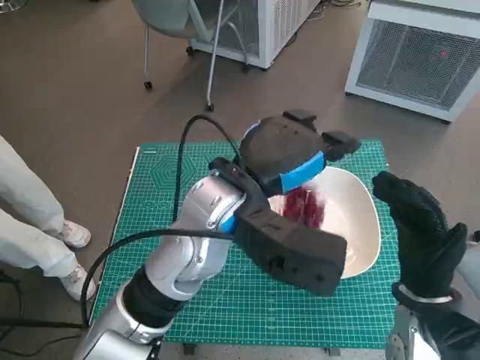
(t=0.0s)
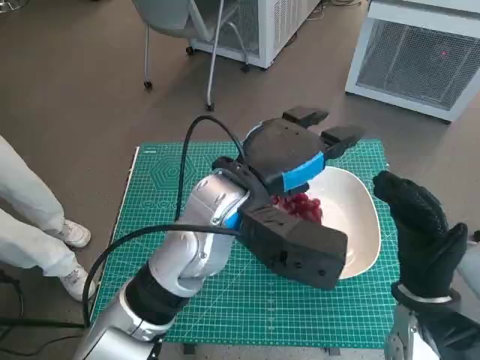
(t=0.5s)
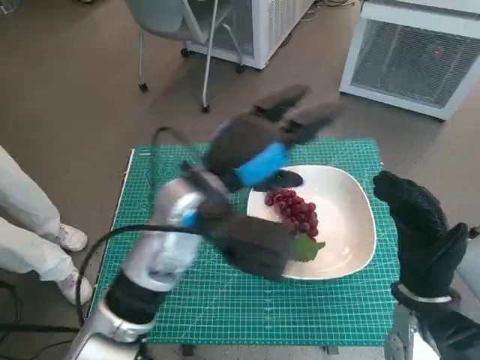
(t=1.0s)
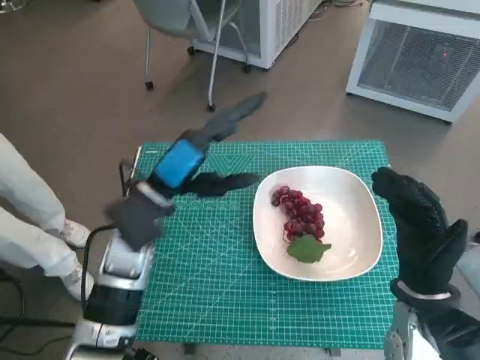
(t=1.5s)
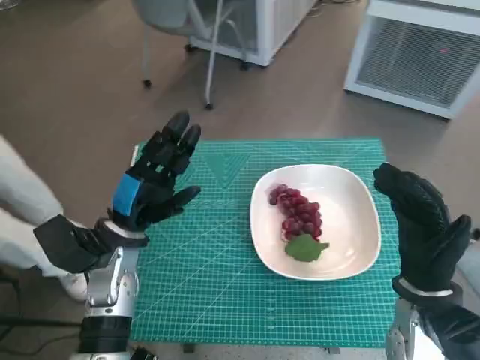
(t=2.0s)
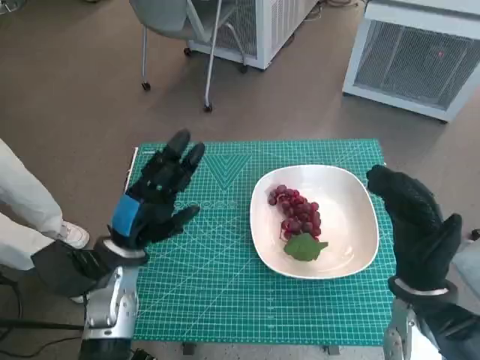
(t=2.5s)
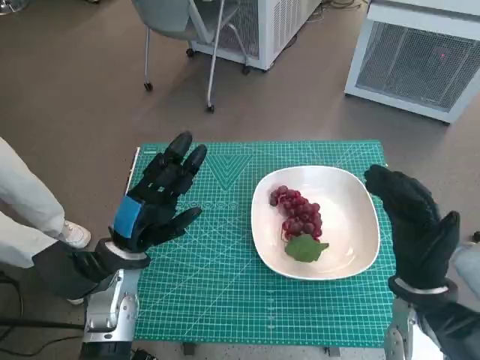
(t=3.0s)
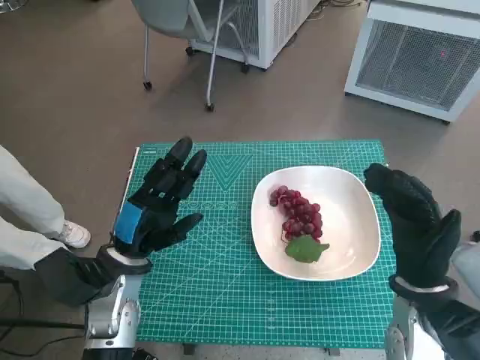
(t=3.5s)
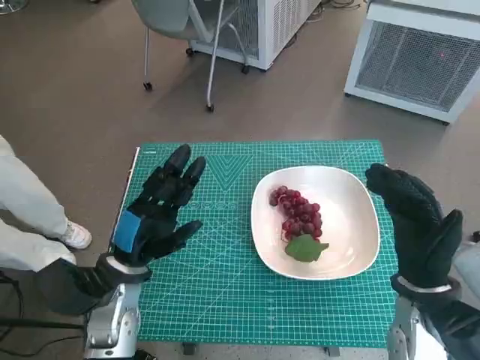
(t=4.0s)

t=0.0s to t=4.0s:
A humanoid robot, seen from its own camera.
Task of the whole recording: Pick up the grapes and put them on the plate.
t=0.0s to t=2.0s: The left hand travels to the left and downward by approximately 20 cm.
t=2.0s to t=4.0s: The hands move only a little.

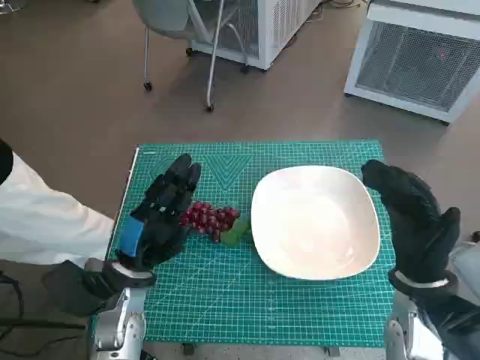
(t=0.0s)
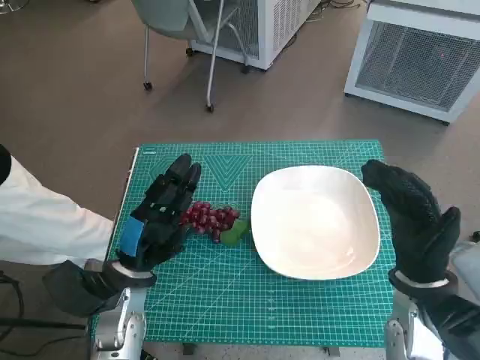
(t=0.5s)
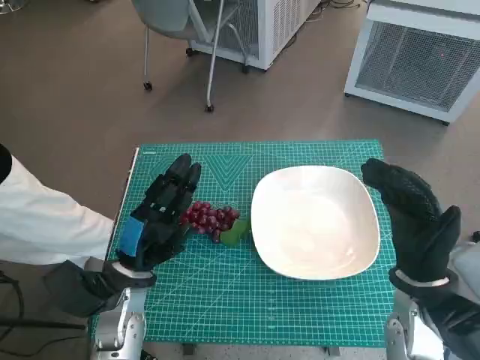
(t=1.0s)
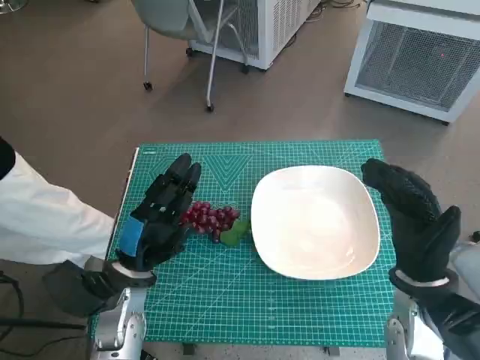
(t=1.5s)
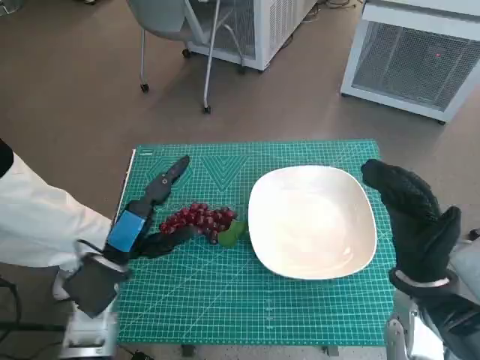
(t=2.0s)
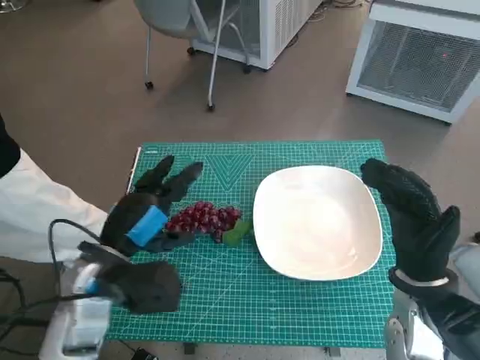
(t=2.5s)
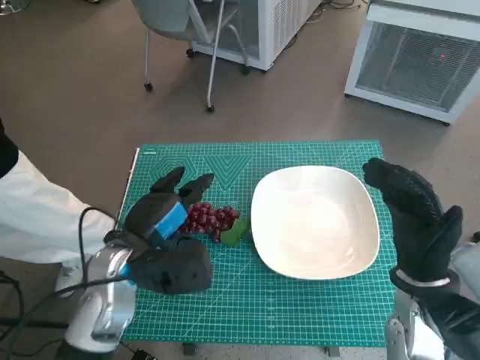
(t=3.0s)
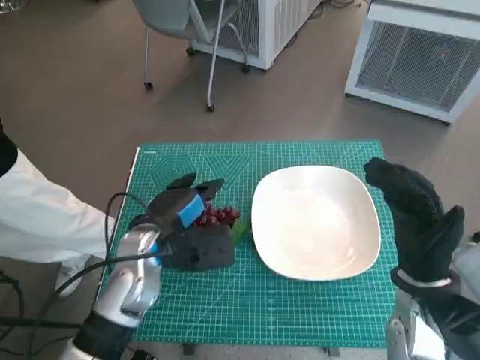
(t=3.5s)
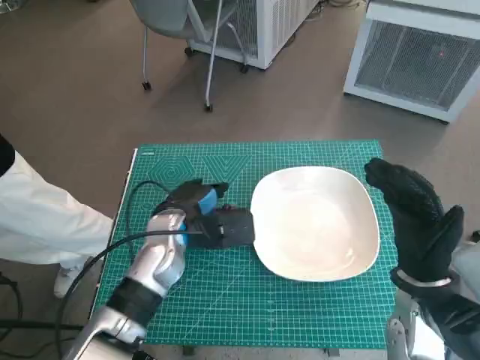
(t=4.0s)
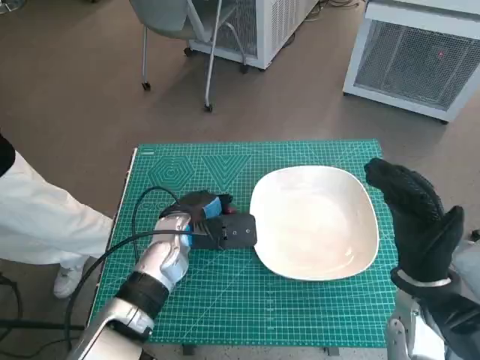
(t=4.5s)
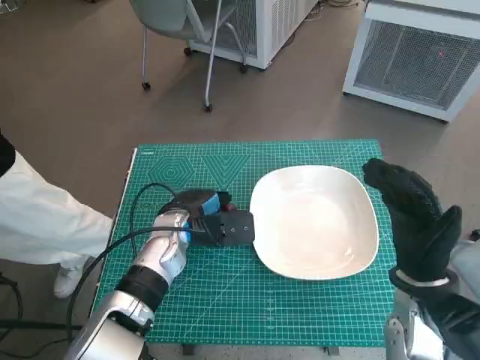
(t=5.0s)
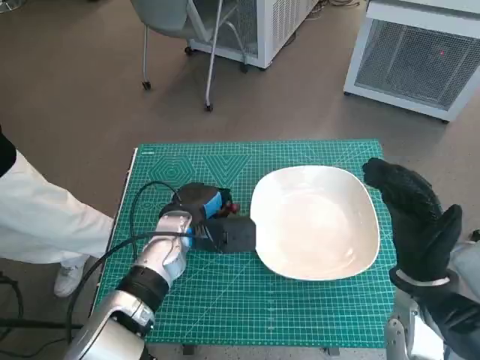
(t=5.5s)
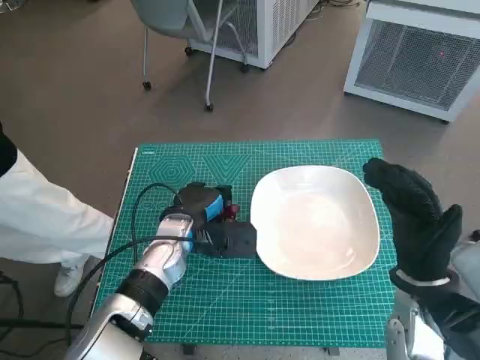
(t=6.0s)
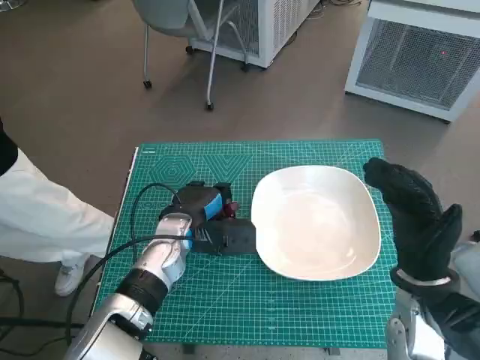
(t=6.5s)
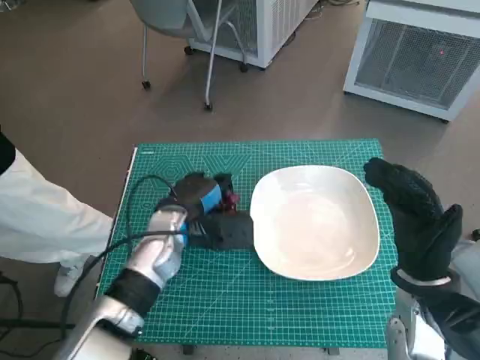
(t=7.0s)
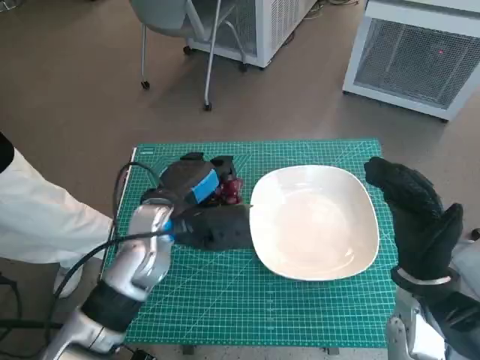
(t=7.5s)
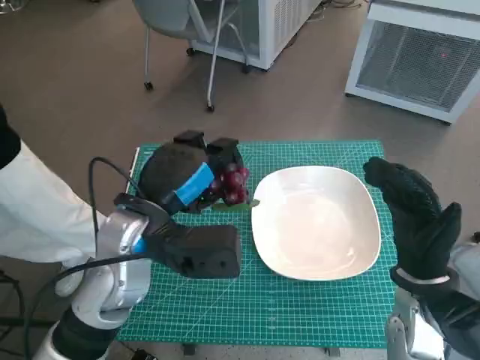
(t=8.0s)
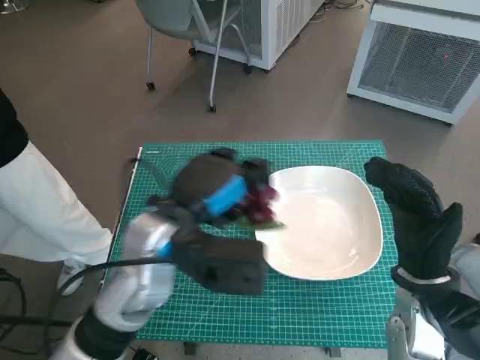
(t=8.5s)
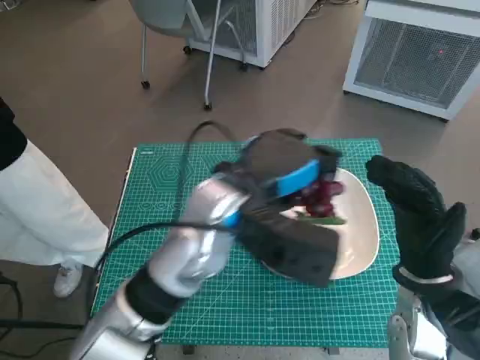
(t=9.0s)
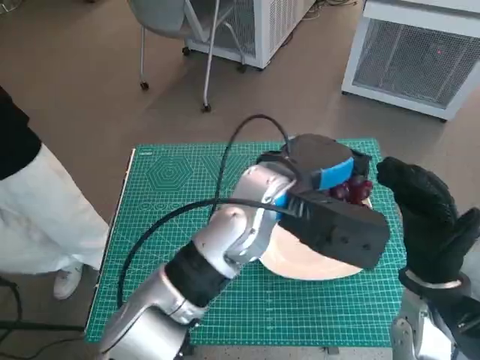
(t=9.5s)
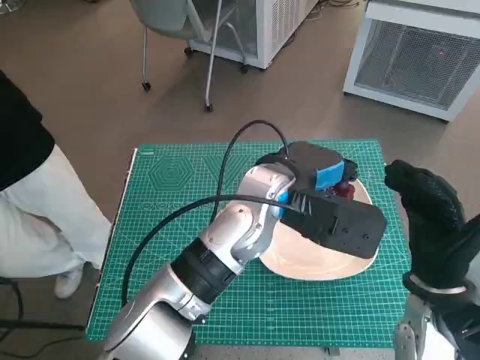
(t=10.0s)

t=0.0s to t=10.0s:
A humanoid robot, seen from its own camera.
Task of the whole recording: Pick up the grapes and put them on the plate.
Step, t=0.0s to t=6.0s: Grasp the grapes with left hand.
t=2.0s to t=4.0s: The left hand heads to the right and forward, covering approximately 10 cm.
t=4.0s to t=6.0s: There are only small adjustments of the hands.
t=6.0s to t=8.0s: The left hand is displaced upward and backward by some 15 cm.
t=8.0s to t=10.0s: The left hand is displaced to the right by some 15 cm.

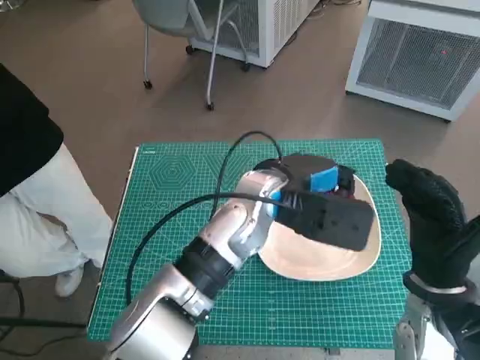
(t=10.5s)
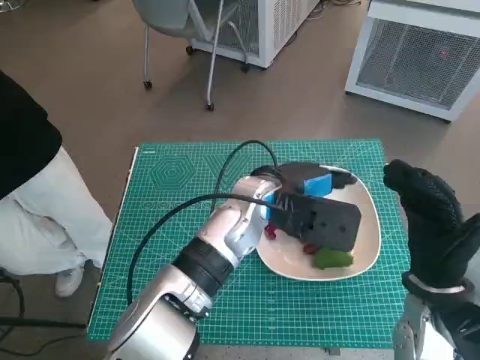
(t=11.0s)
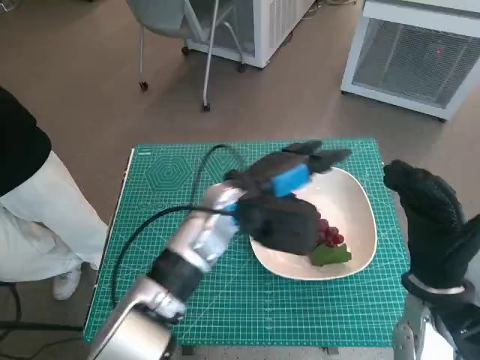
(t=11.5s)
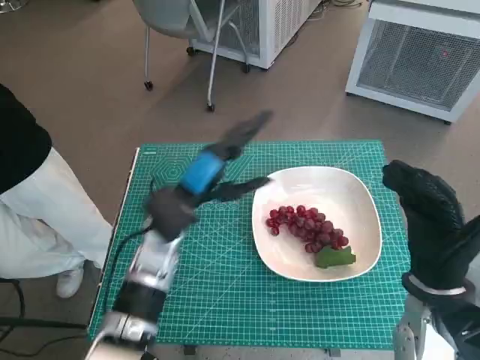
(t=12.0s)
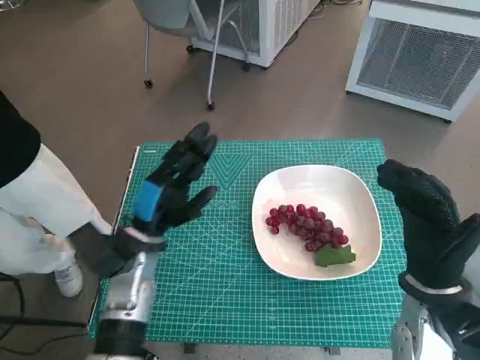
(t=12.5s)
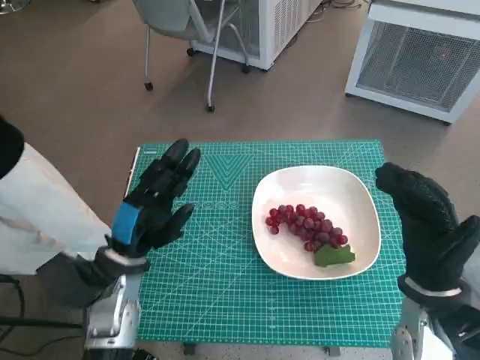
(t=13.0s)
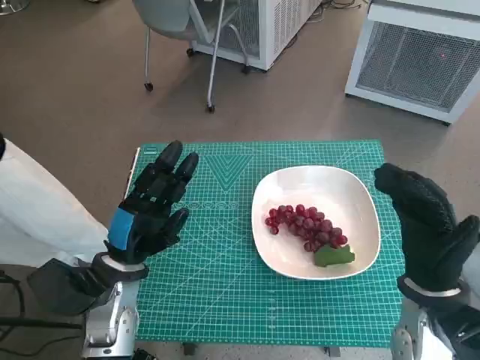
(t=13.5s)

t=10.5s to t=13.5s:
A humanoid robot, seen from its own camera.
Task of the whole recording: Pick up the grapes and put them on the plate.
t=10.5s to t=12.0s: The left hand travels to the left and downward by roughly 15 cm.
t=12.0s to t=13.5s: The left hand heads to the left and backward, covering approximately 10 cm.

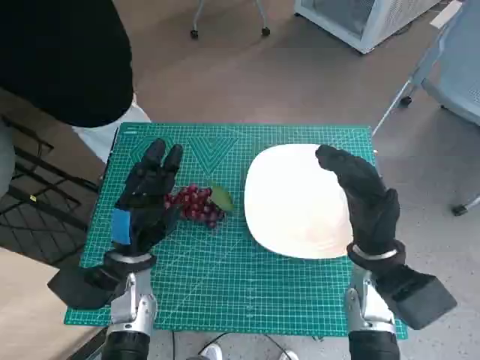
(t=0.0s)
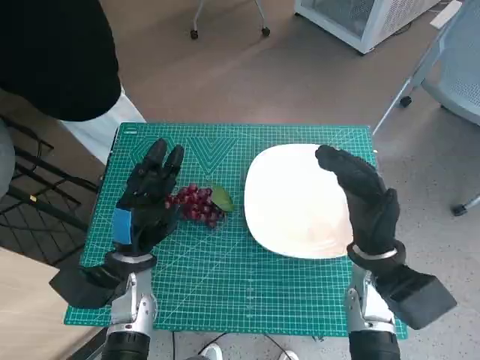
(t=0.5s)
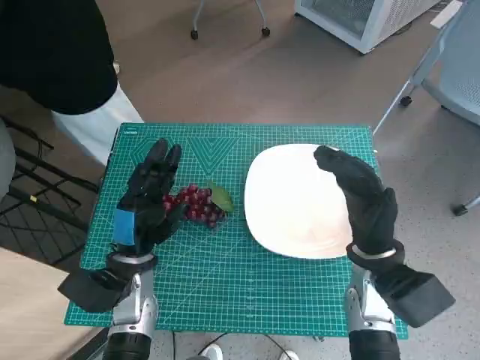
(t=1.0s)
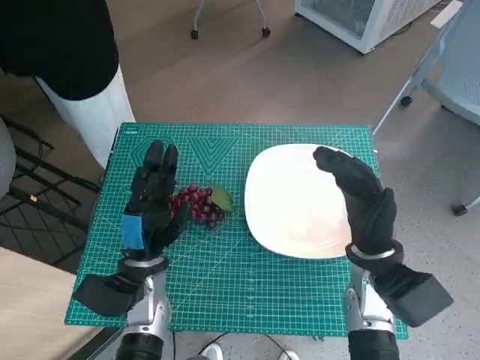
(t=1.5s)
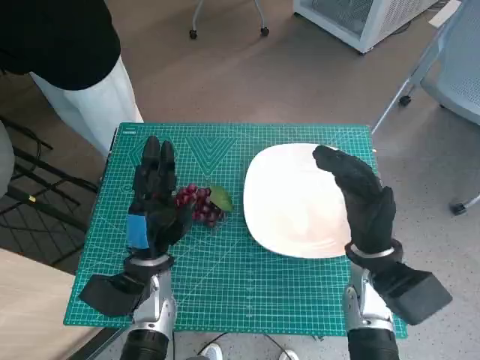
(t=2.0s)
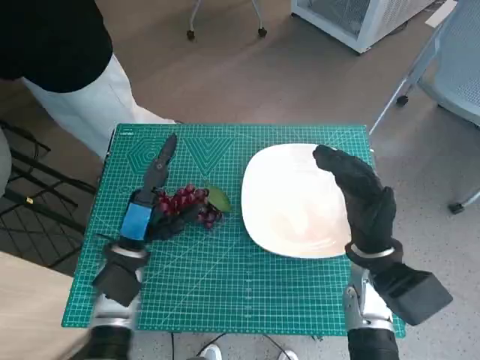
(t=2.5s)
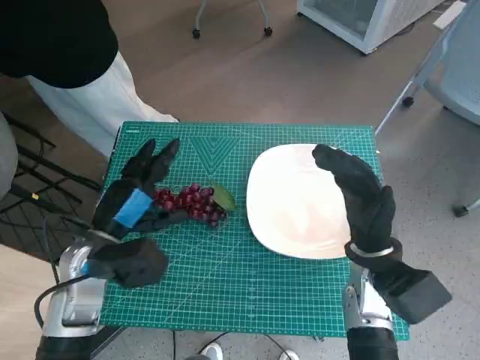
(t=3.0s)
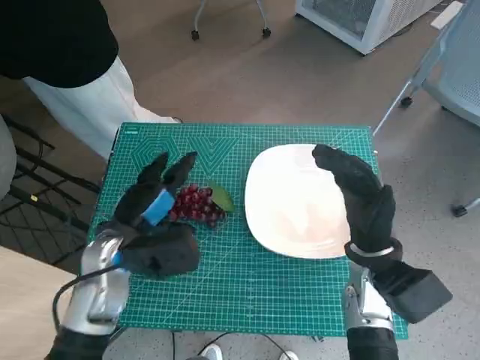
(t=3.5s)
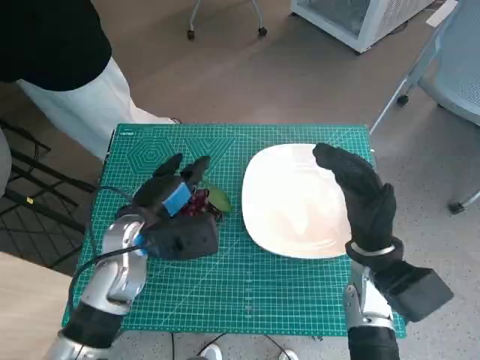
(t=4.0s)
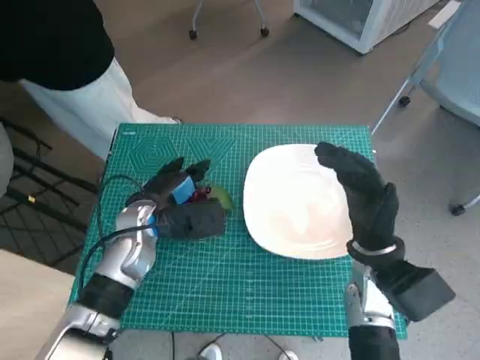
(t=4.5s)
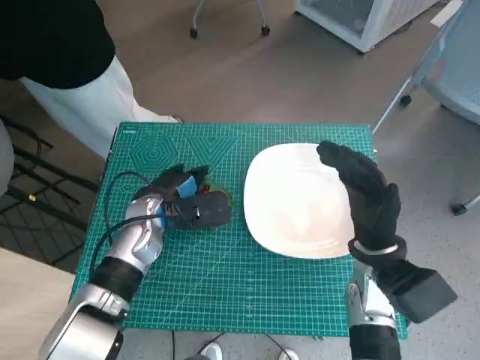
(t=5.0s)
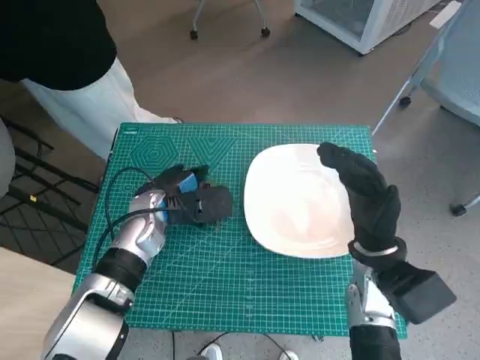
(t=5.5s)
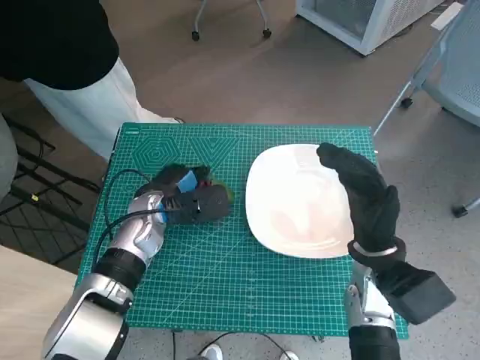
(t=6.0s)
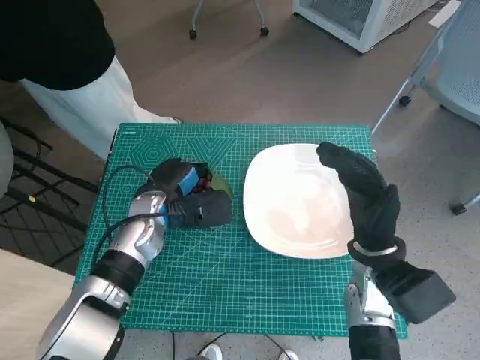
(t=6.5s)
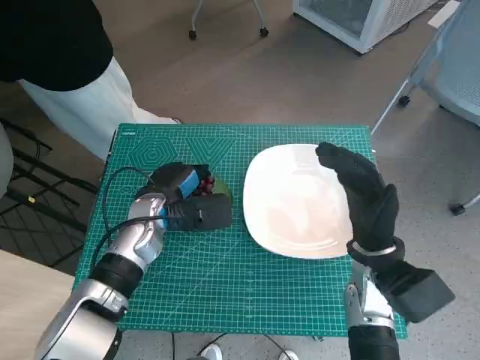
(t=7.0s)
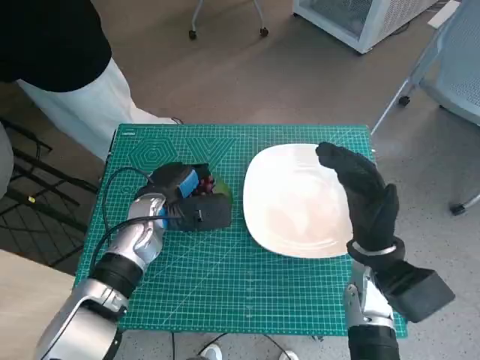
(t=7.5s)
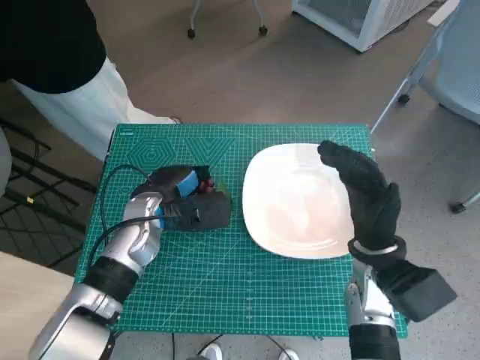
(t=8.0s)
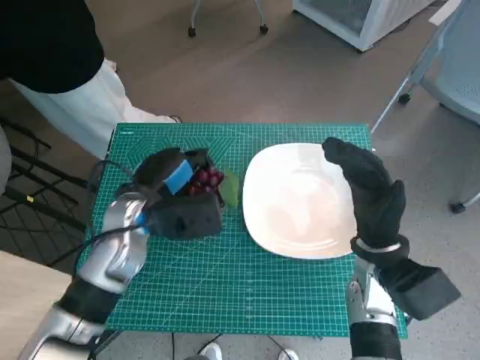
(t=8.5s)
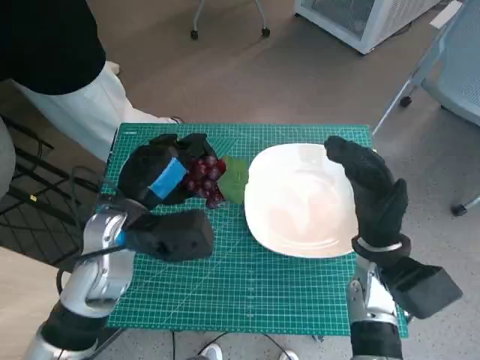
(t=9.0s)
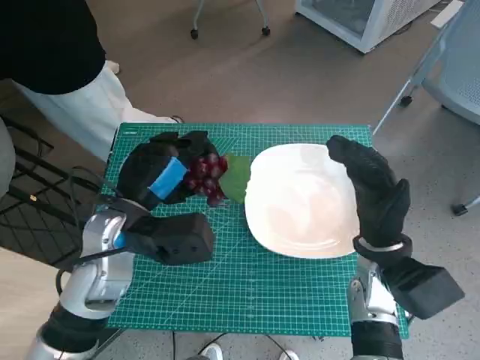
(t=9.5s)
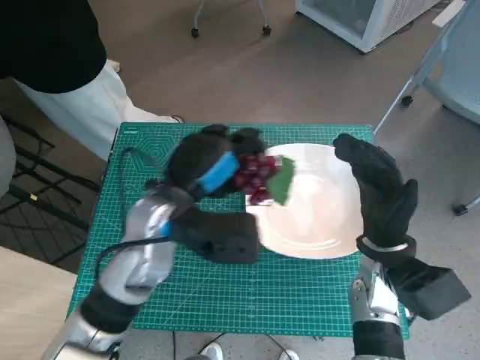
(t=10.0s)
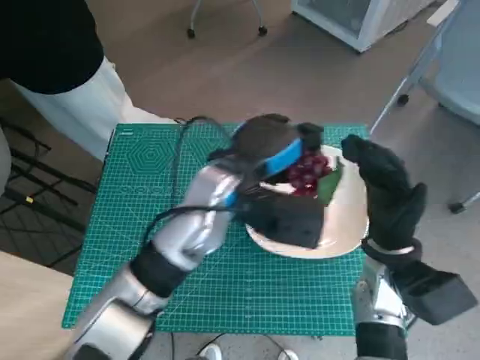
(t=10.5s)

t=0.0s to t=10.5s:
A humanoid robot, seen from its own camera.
Task of the whole recording: Pick up the grapes and put them on the plate.
Step, t=0.0s to t=4.5s: Grasp the grapes with left hand.
t=2.0s to t=4.0s: The left hand goes about 10 cm upward.
t=4.0s to t=6.5s: The left hand travels forward by some 5 cm.
t=6.5s to t=8.5s: The left hand moves about 5 cm.
t=8.5s to t=10.5s: The left hand is displaced to the right and upward by approximately 15 cm.
